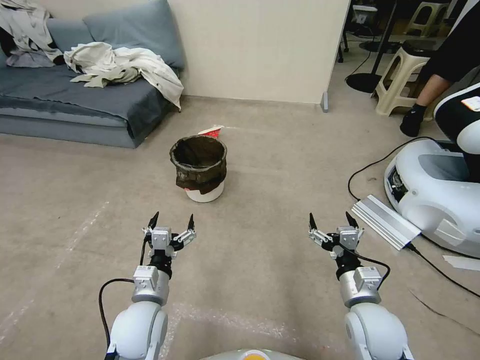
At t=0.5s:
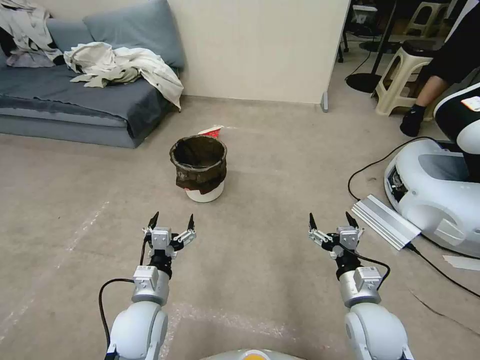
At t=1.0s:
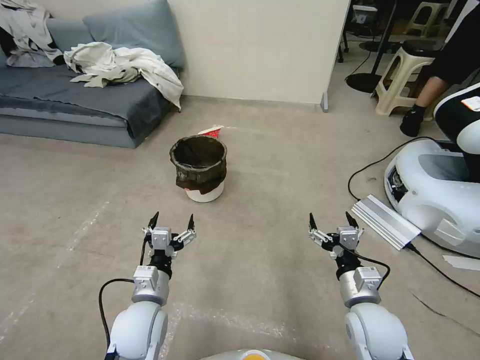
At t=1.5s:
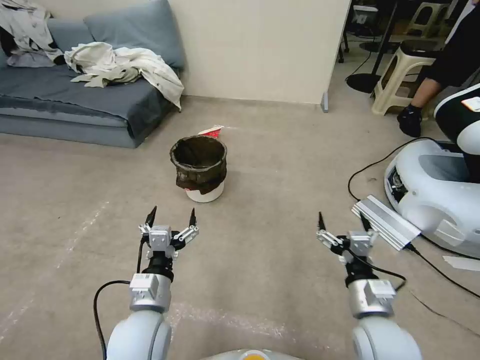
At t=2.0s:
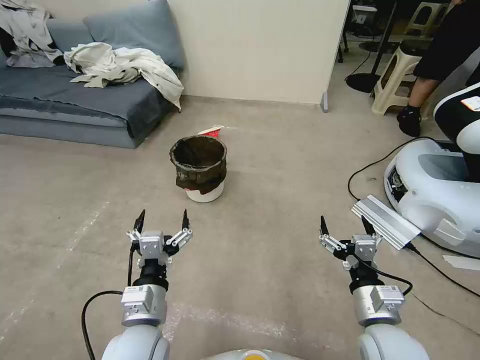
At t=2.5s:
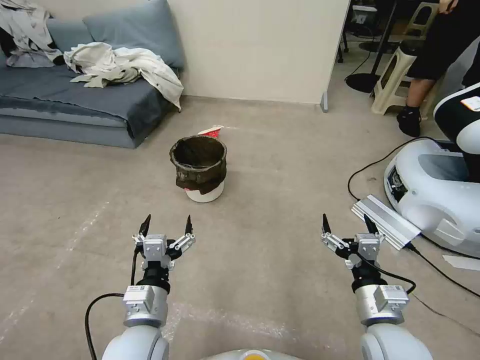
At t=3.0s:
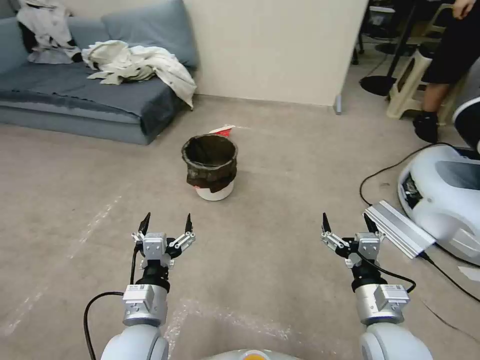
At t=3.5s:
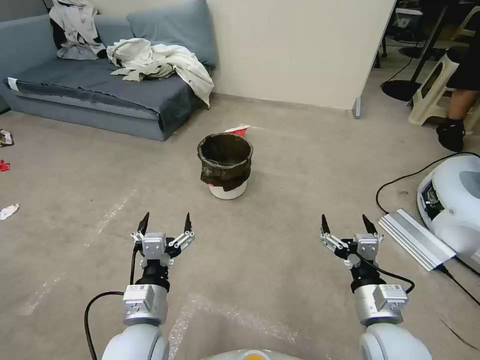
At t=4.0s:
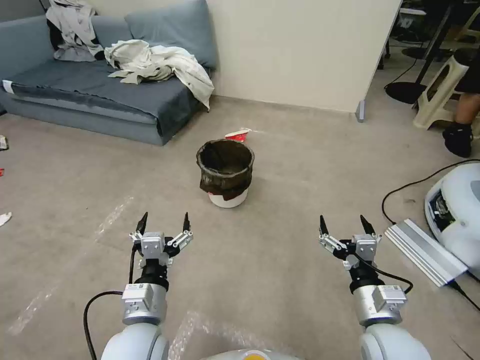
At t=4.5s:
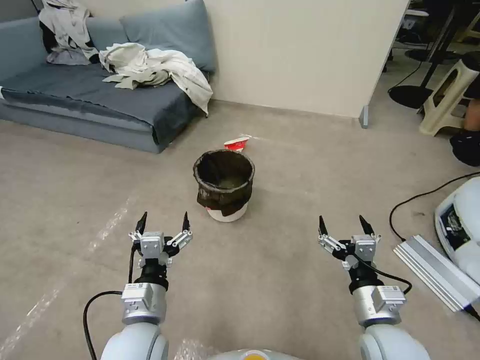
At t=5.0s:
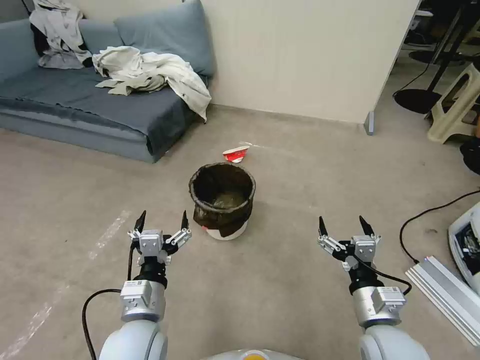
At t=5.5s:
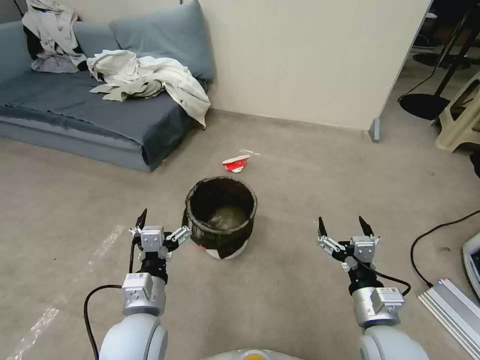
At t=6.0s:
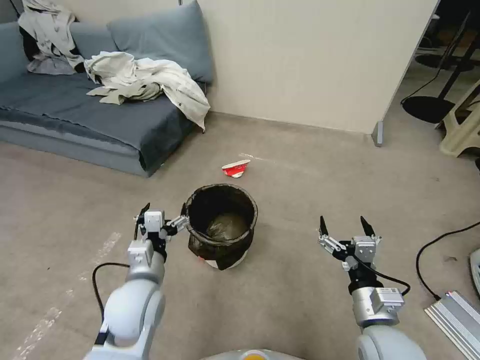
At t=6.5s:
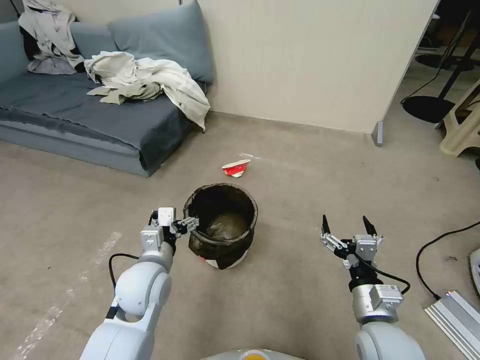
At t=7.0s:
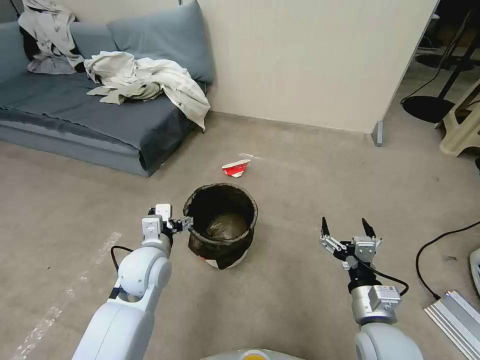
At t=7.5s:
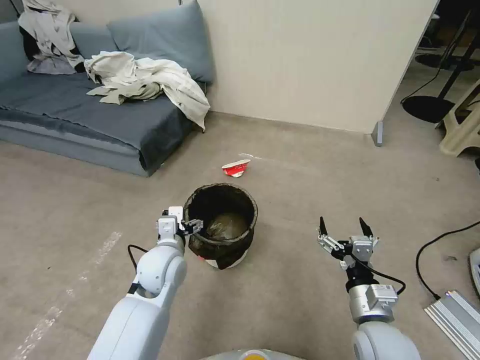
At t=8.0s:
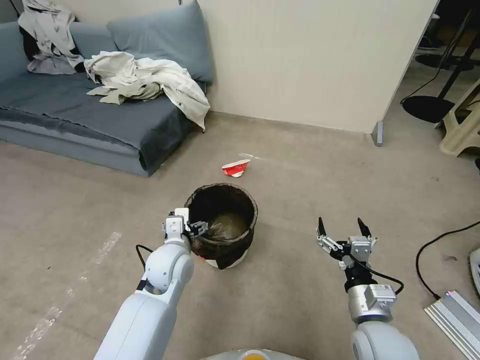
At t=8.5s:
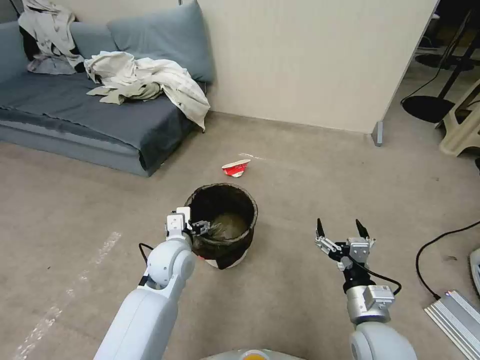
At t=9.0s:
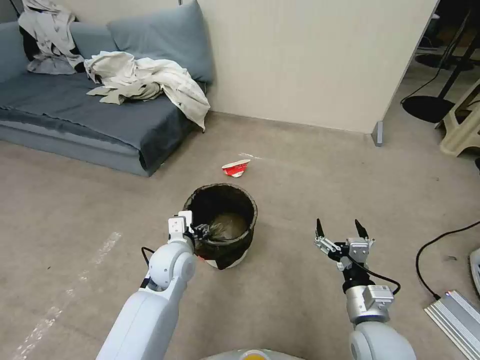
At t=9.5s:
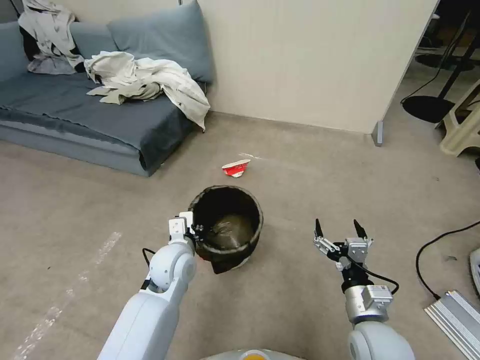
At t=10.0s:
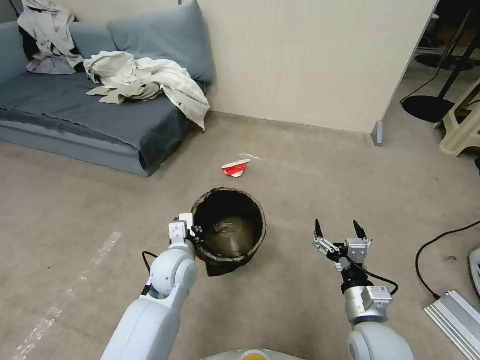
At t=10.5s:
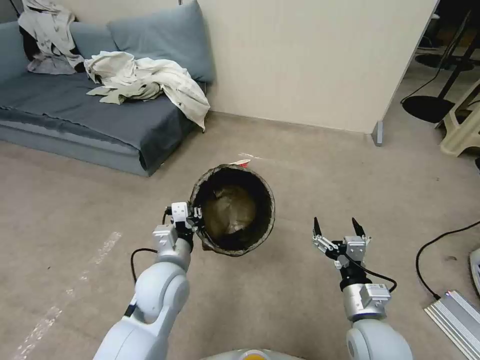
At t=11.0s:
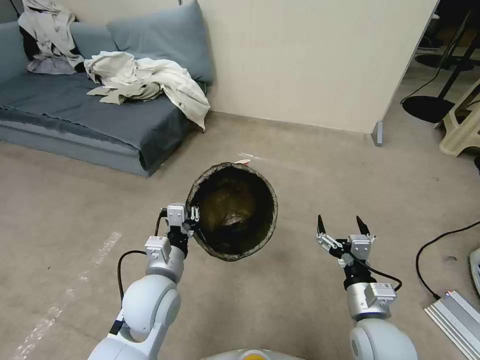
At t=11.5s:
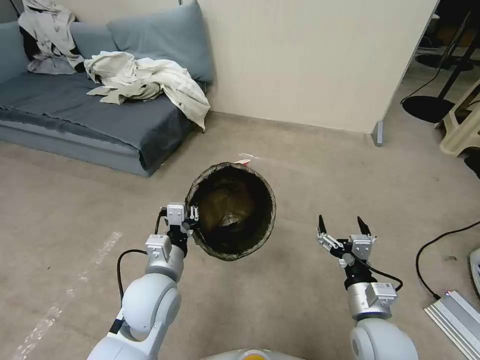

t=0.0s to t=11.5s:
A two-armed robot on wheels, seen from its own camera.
Task of the whole recording: Pick up the trash can from the floor.
t=4.0s to t=6.0s: The left gripper shifts roughly 10 cm forward.
t=6.0s to t=7.5s: The left gripper heads forward, covering about 5 cm.
t=7.5s to t=9.5s: The left gripper closes.
t=9.5s to t=11.5s: The left gripper moves backward, roughly 10 cm.
